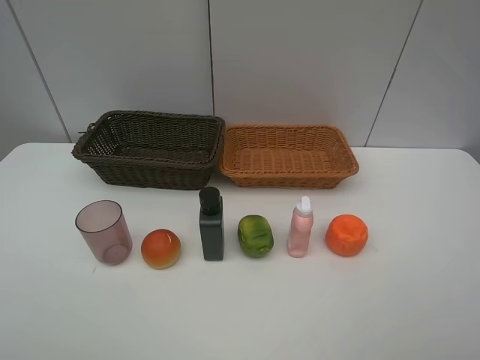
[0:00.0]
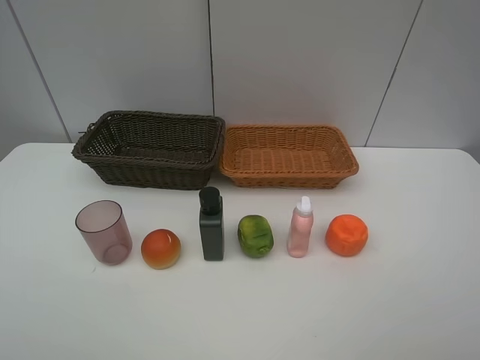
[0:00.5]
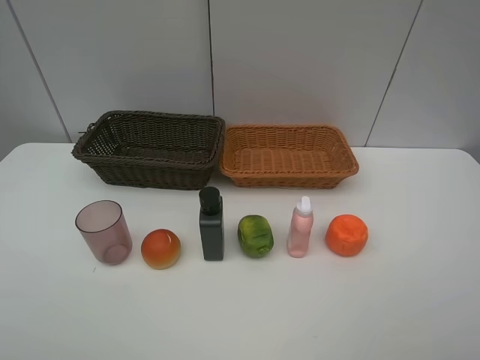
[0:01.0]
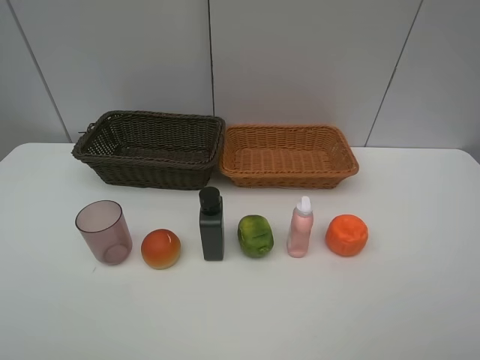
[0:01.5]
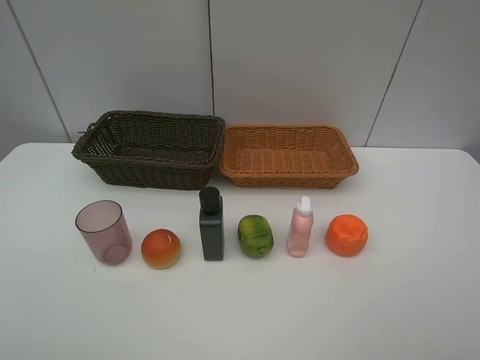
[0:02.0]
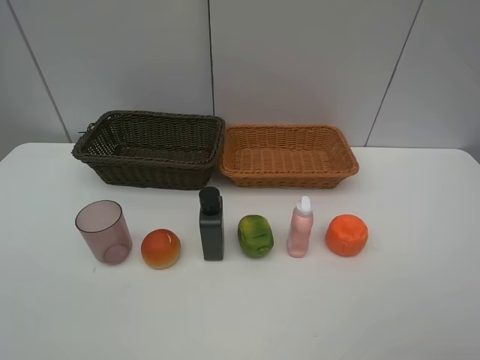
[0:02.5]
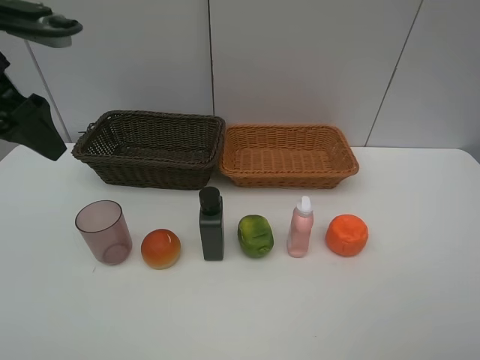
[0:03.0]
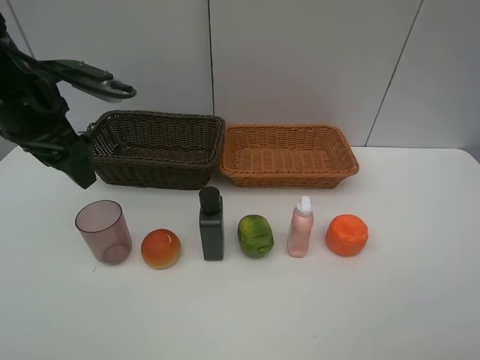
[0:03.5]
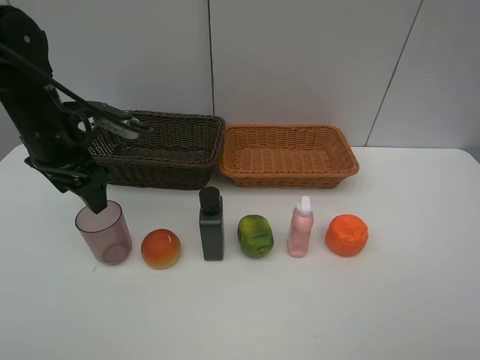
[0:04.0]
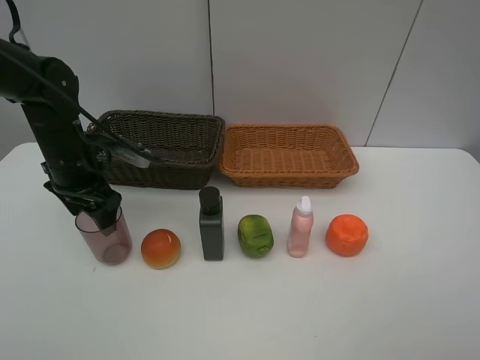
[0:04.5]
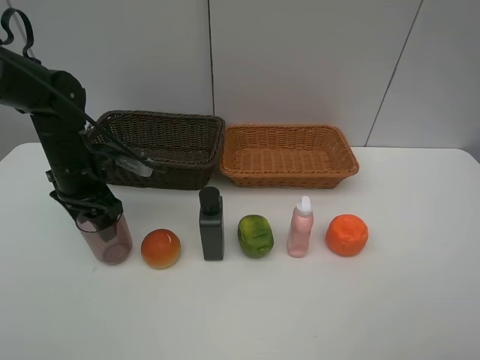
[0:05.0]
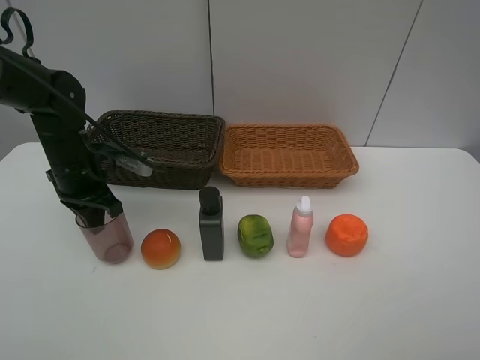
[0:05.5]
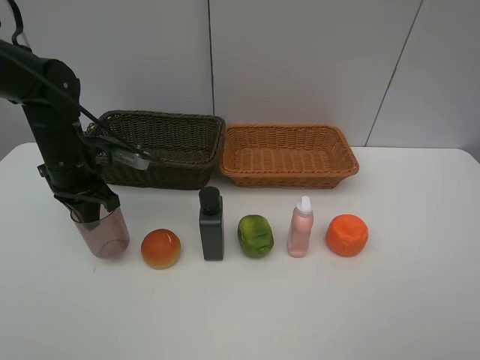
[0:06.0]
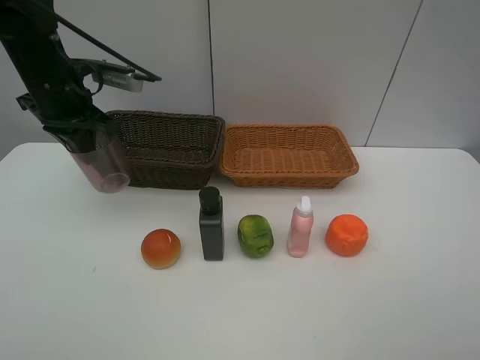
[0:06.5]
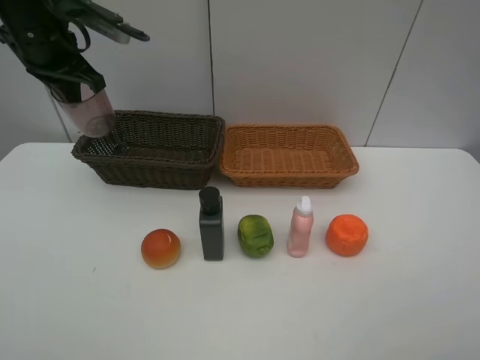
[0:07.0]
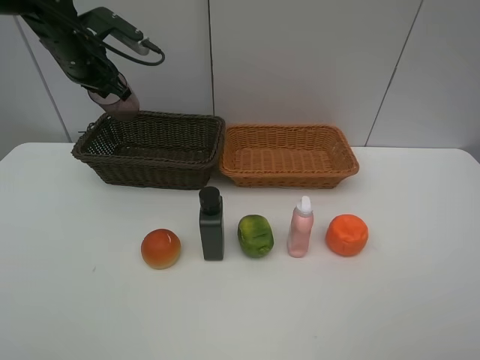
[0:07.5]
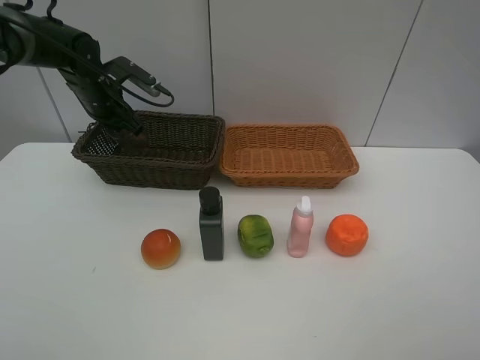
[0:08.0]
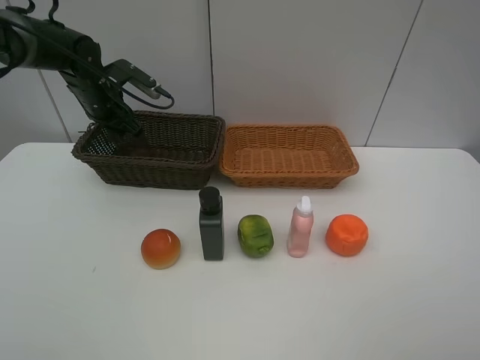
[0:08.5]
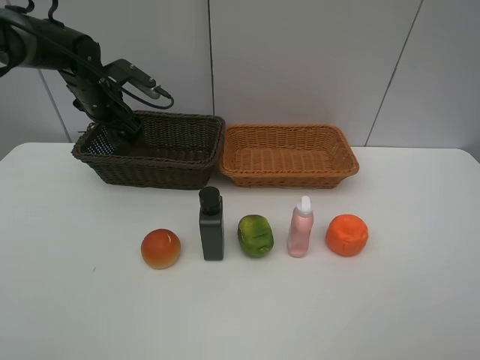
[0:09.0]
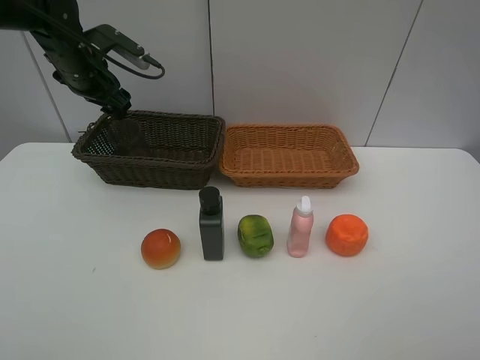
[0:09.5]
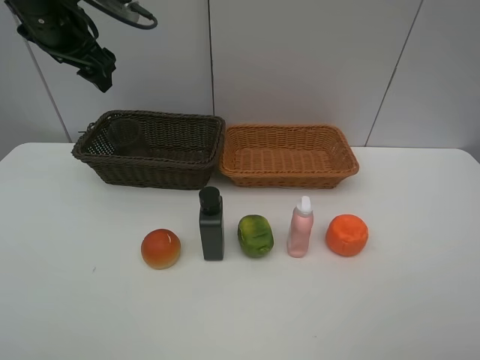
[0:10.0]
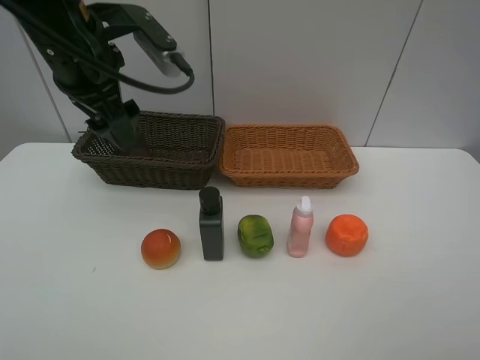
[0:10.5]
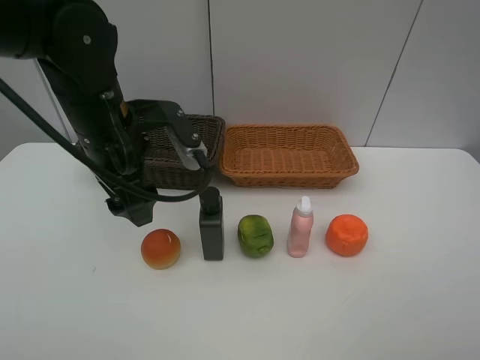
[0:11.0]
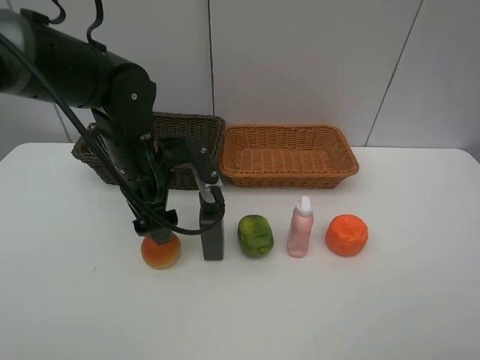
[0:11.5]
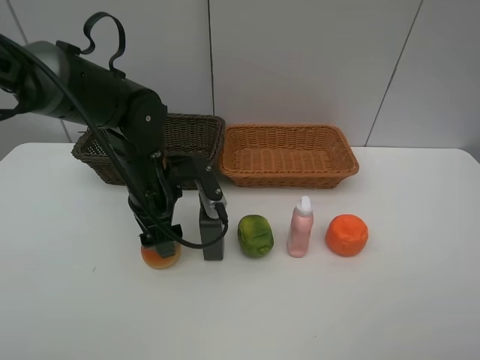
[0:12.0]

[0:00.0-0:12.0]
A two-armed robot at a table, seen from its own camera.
Task of the whole recording: place multiple objects separately in different baskets.
0:02.0 to 0:04.0: The left gripper heads forward, covering roughly 30 cm.
0:04.0 to 0:06.0: The left gripper travels downward by some 5 cm, and closes up.
0:06.0 to 0:08.0: The left gripper goes roughly 15 cm forward, and goes upward and returns, approximately 15 cm each way.
0:08.0 to 0:10.0: The left gripper heads upward and backward, covering roughly 15 cm, and opens its fingers.
0:10.0 to 0:12.0: The left gripper travels downward, to the right and backward by some 25 cm.

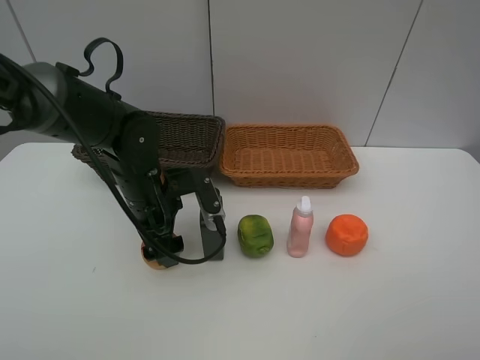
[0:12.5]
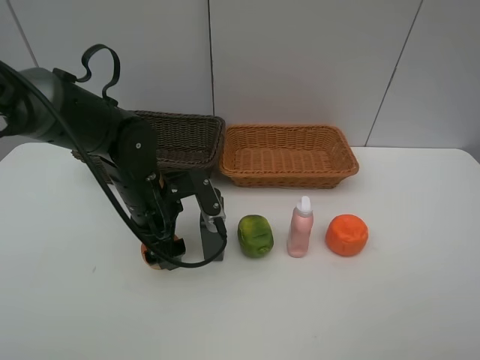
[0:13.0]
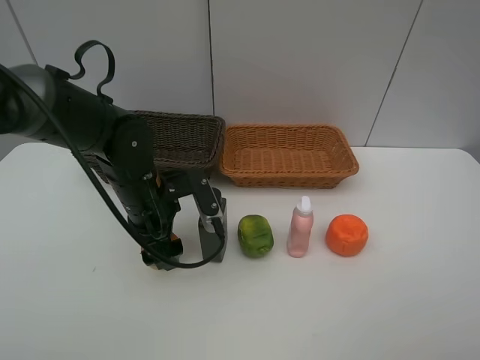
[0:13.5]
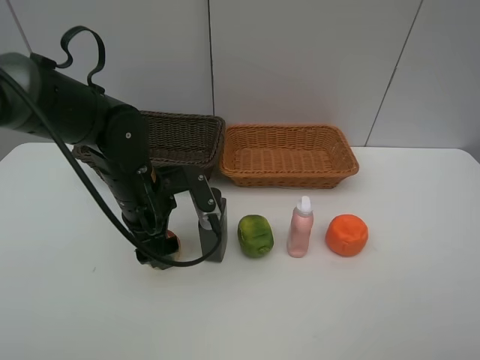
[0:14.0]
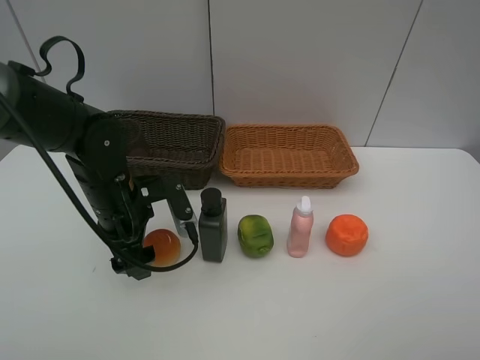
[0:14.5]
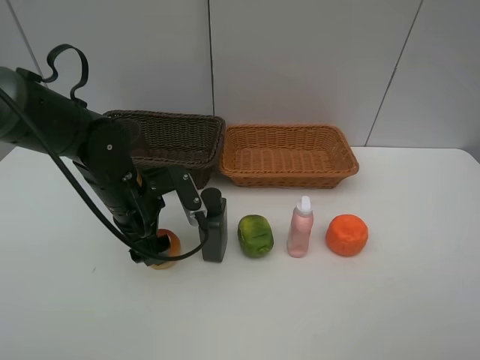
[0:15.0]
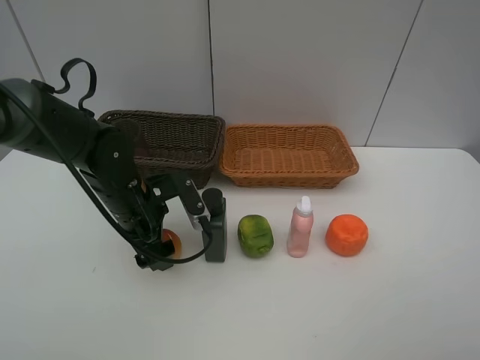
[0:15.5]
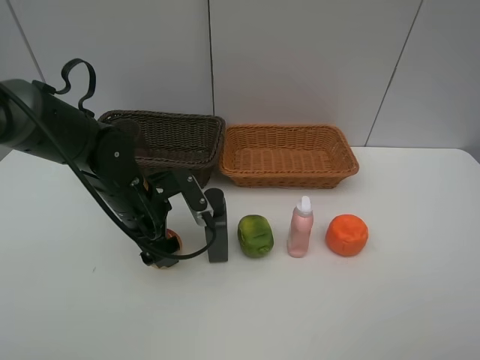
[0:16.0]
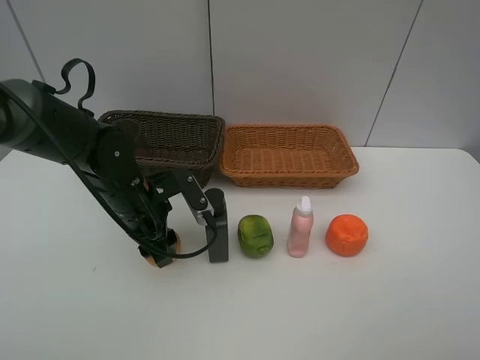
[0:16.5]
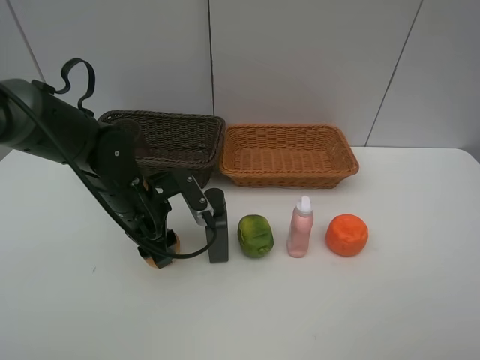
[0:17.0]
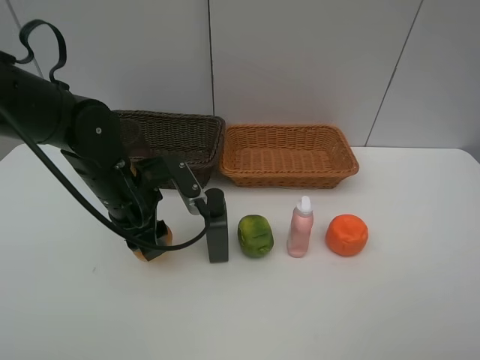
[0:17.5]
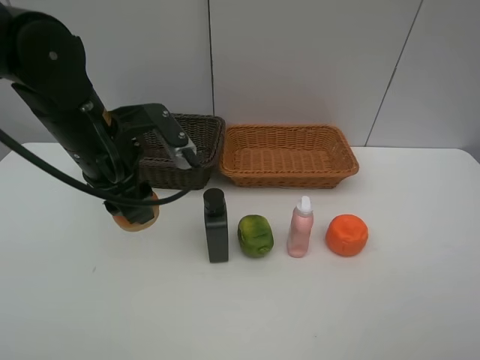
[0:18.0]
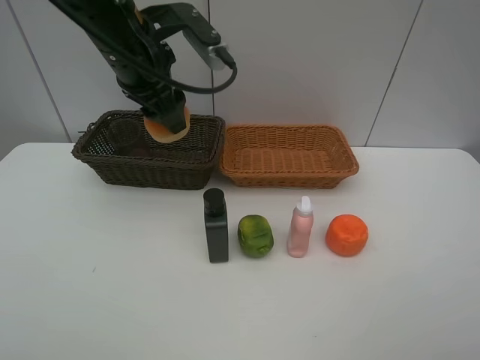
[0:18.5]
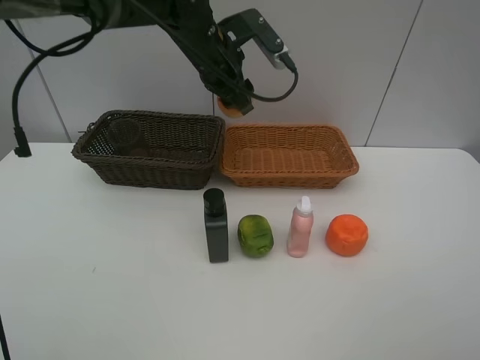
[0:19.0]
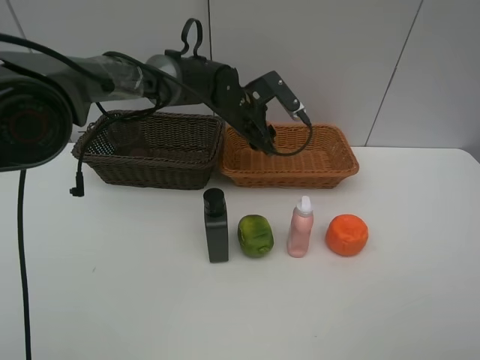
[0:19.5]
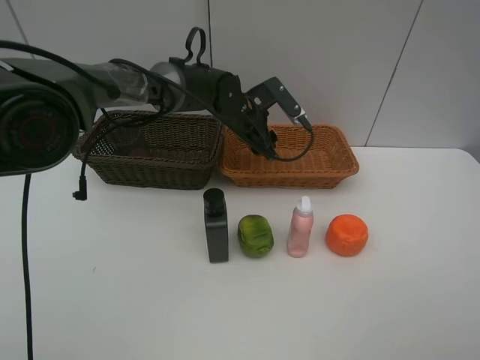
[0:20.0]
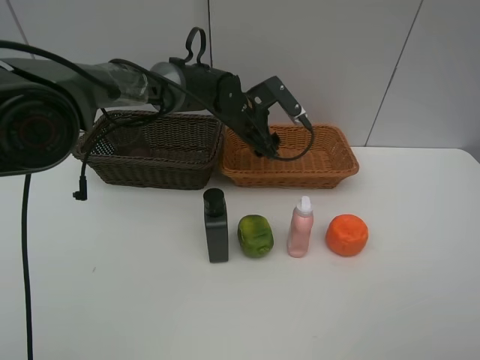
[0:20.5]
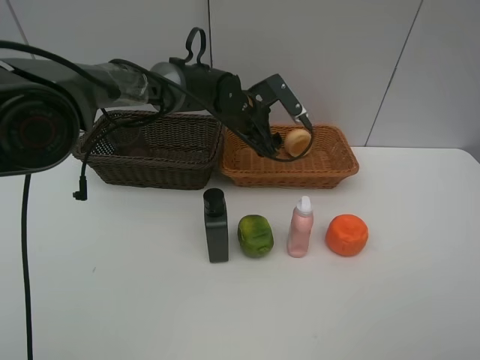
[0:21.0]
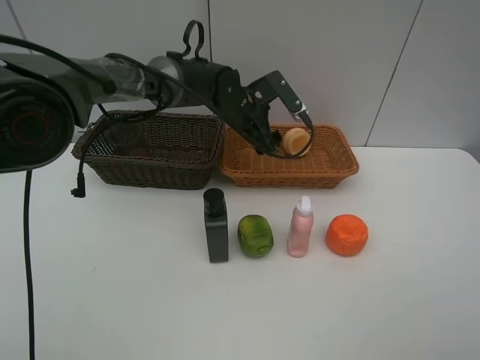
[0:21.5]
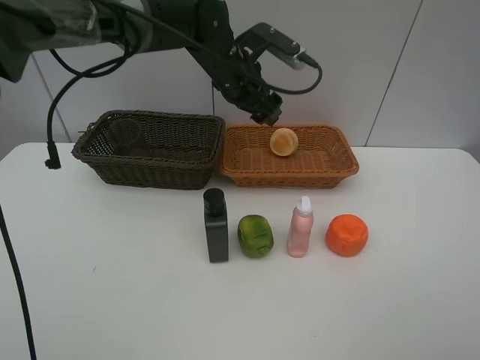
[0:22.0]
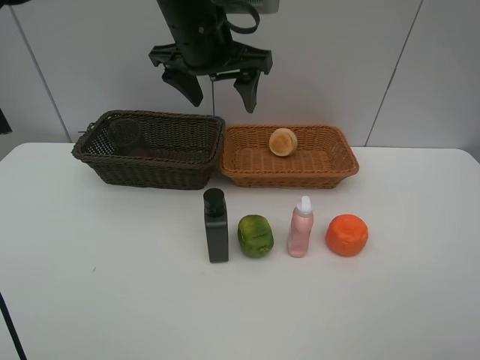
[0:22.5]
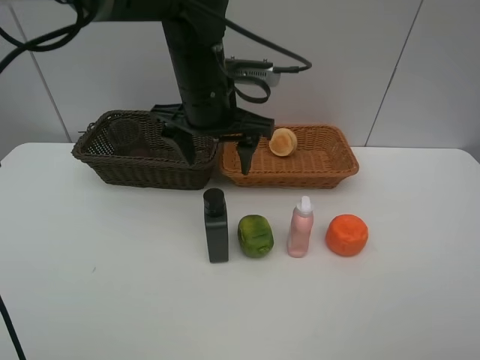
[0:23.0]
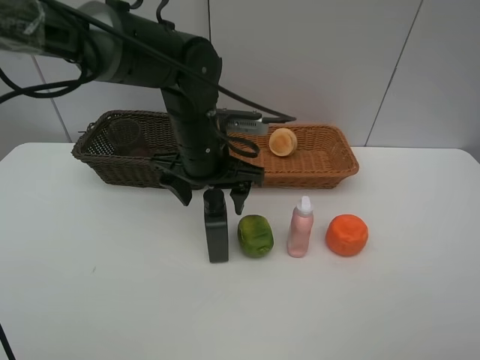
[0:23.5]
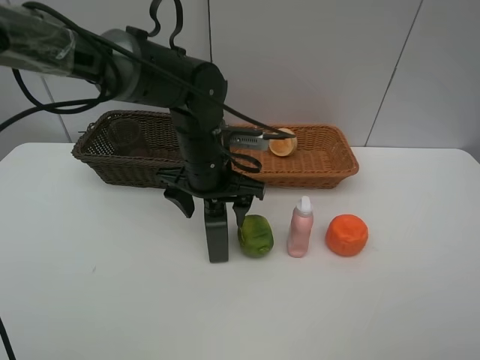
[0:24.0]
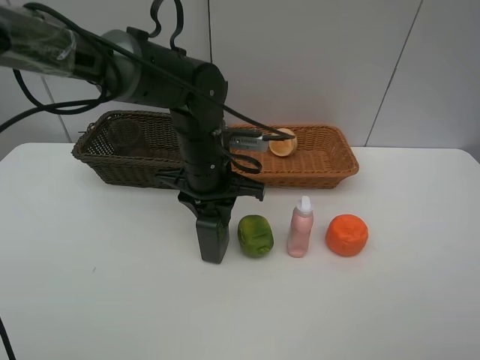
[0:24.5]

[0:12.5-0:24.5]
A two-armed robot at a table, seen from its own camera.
Task of the whole recording: place multiple objects separately in different baskets.
0:12.5 to 0:16.5: The grippers make only small movements.
0:16.5 to 0:18.5: The left gripper shifts about 20 cm upward.
0:18.5 to 0:20.5: The left gripper is displaced downward, to the right and forward by about 25 cm.
0:20.5 to 0:22.5: The left gripper moves upward and backward, roughly 20 cm.
0:22.5 to 0:24.5: The left gripper heads downward, covering approximately 15 cm, and closes up.

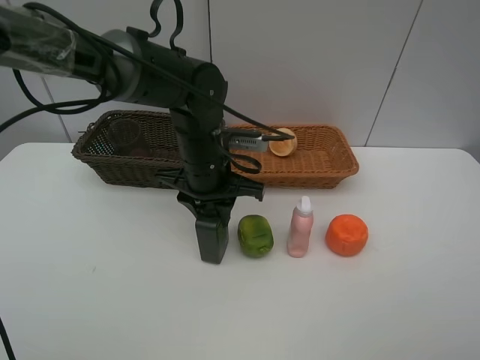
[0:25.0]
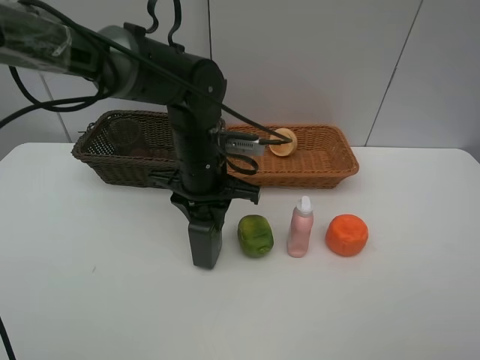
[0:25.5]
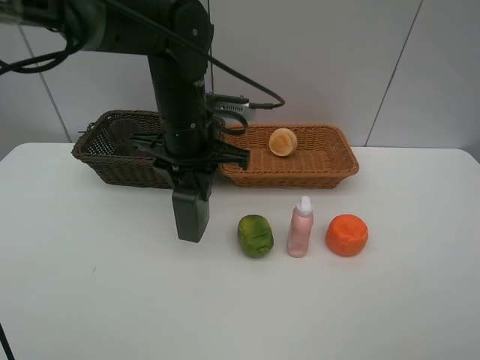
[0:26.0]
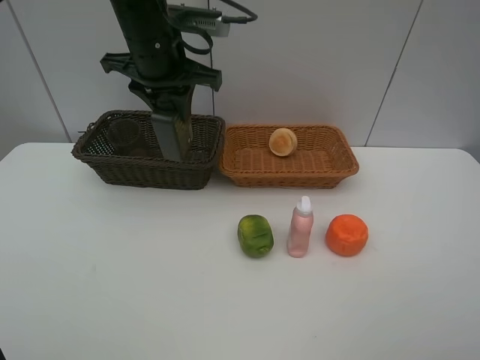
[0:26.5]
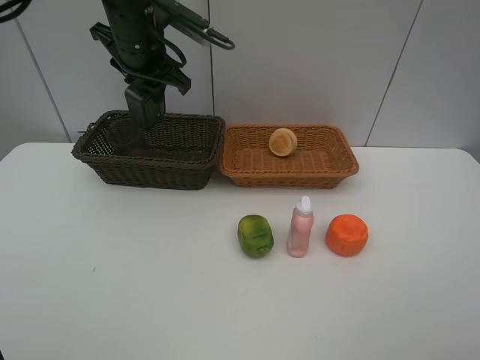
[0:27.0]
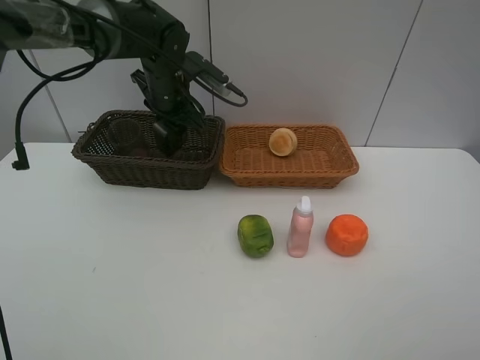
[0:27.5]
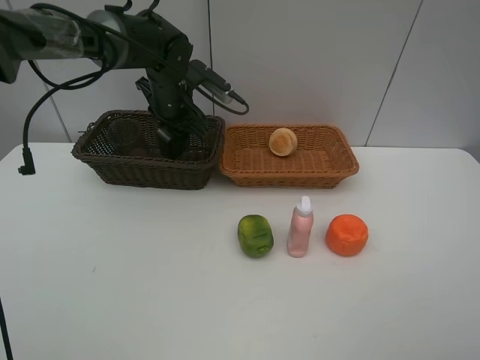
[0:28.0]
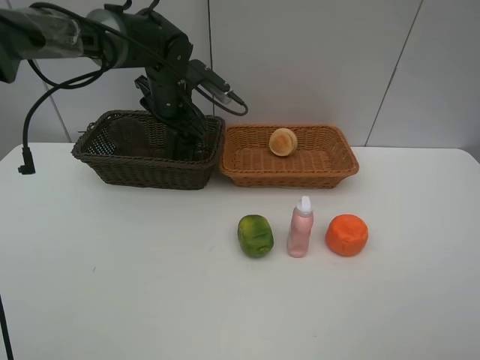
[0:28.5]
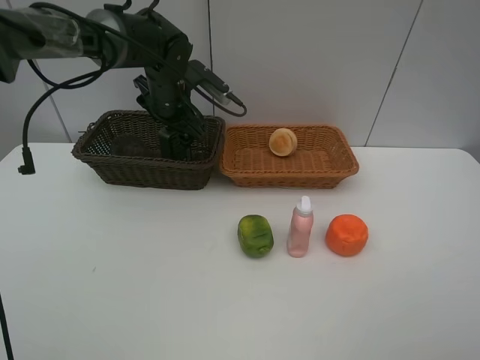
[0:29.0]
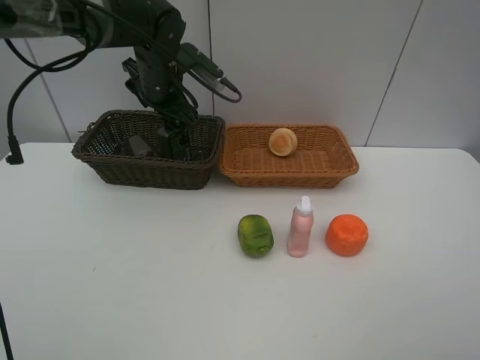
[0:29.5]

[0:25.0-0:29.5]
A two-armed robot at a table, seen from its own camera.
Task of the whole recording: place multiple objects separately in different baskets.
0:25.0 to 0:27.0: The left gripper goes some 20 cm upward, forward and to the left.
0:27.0 to 0:29.5: The left gripper moves downward, approximately 5 cm, and opens its fingers.
